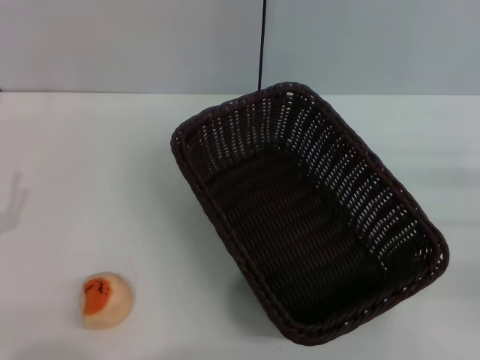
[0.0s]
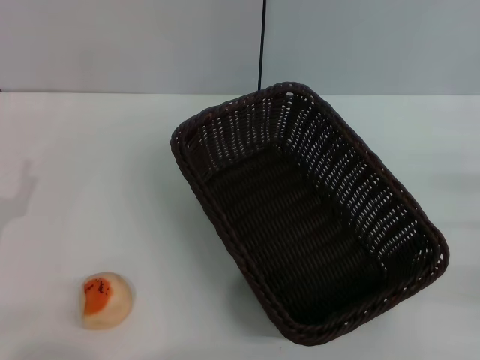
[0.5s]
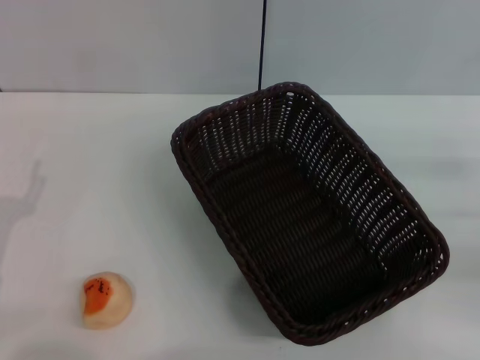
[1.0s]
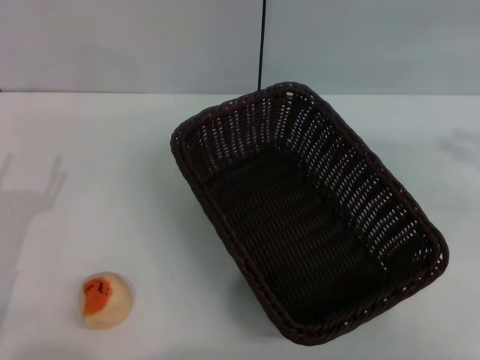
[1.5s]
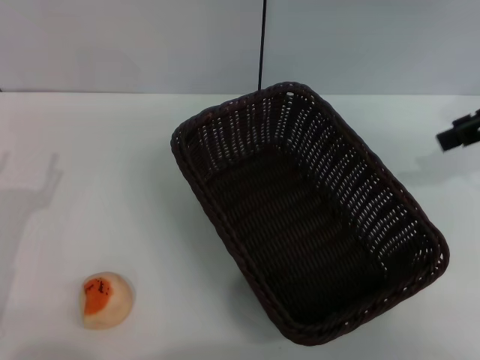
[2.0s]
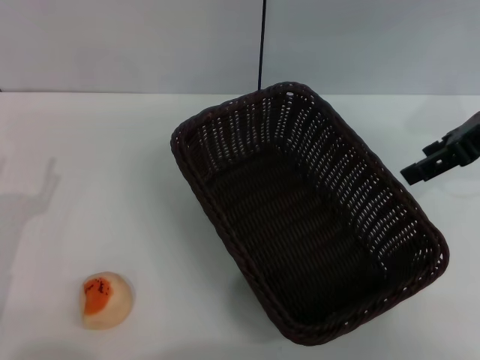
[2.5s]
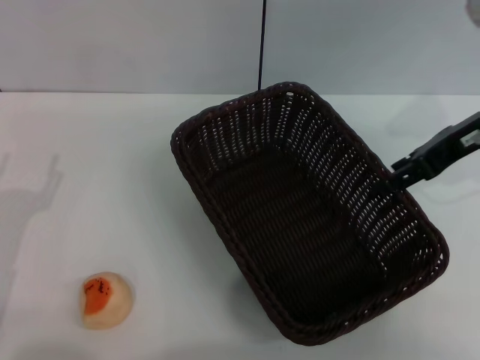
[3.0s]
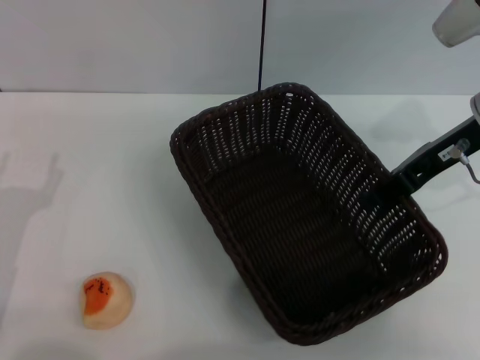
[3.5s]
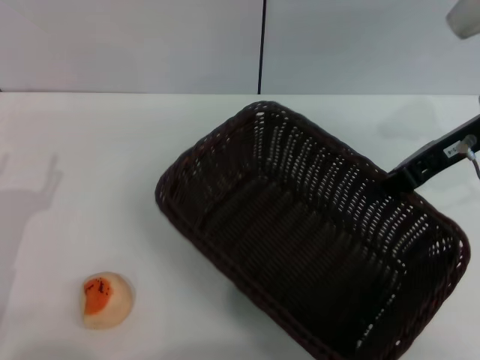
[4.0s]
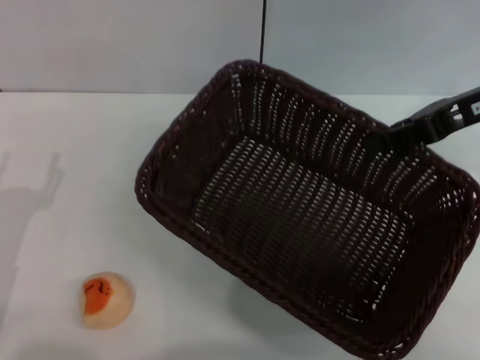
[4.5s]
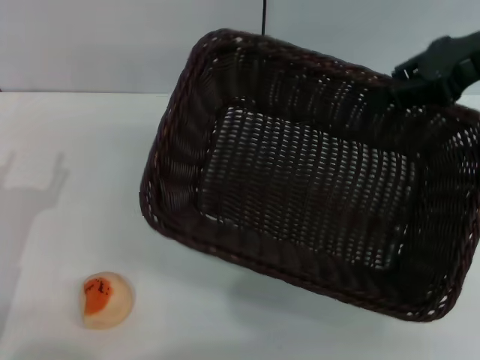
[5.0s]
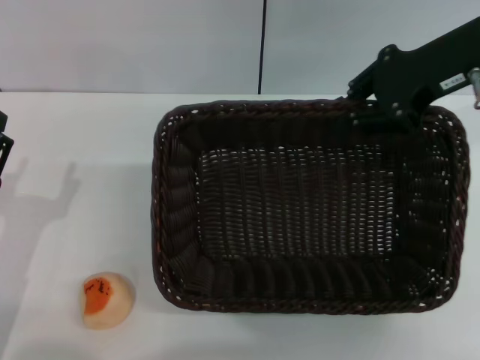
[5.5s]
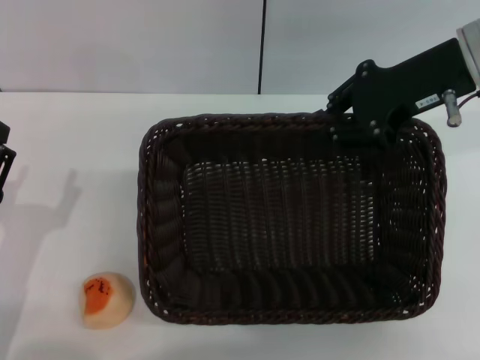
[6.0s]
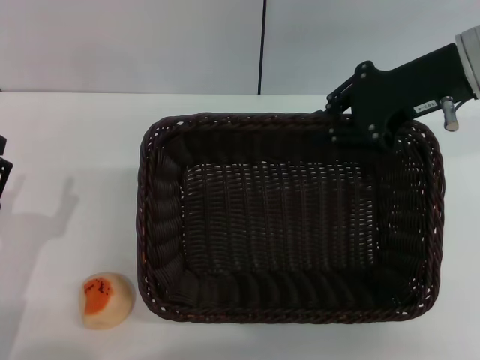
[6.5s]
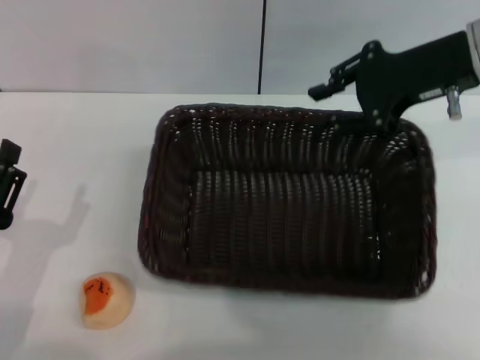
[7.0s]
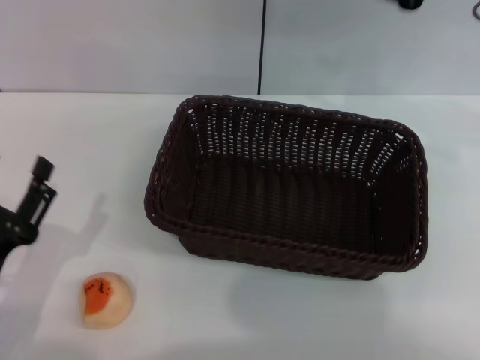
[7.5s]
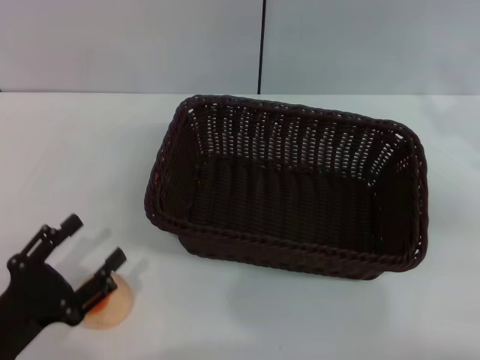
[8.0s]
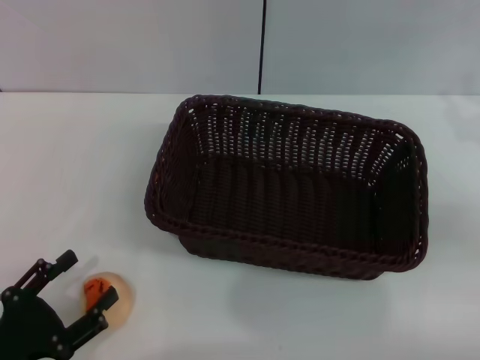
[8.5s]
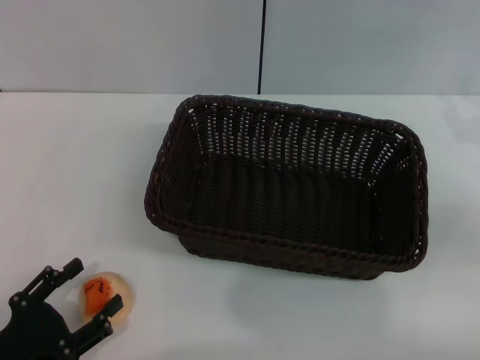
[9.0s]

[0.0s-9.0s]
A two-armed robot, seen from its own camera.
Step, 0.0s to 7.0s: Move the basket to the center of view with the right gripper.
0.0s to 2.0s: The right gripper moves upward and forward, approximately 20 cm.
2.0s to 4.5s: The right gripper closes its fingers.
7.0s to 9.0s: The right gripper is displaced to the right, downward and backward by approximately 20 cm. Meanwhile the left gripper changes place by some 5 cm.

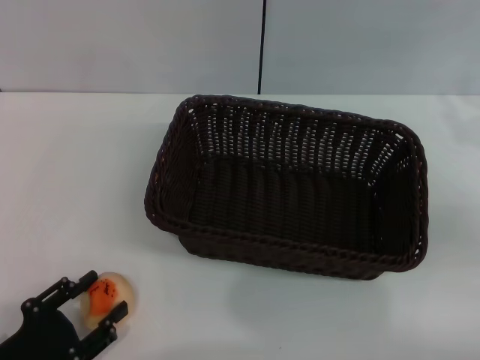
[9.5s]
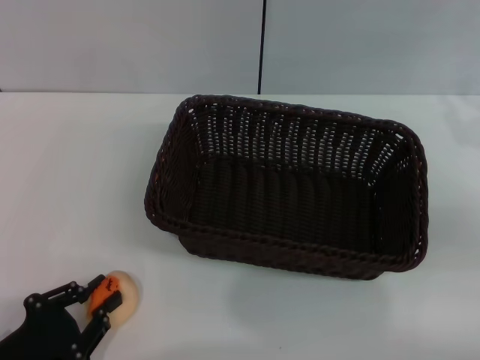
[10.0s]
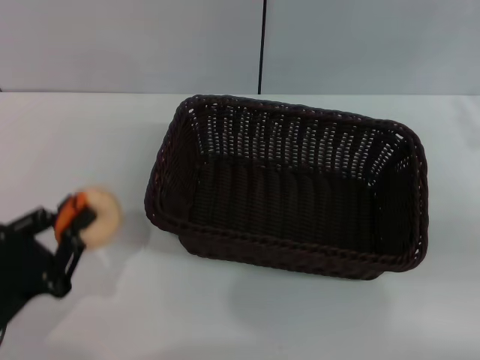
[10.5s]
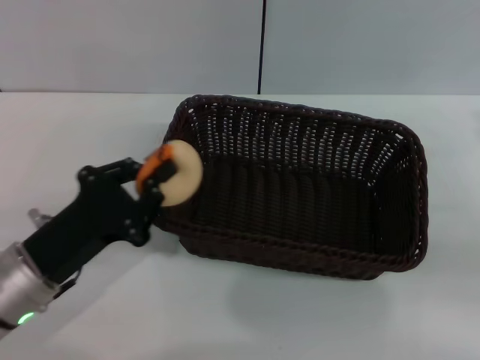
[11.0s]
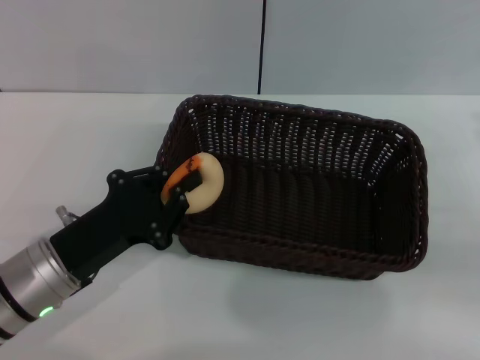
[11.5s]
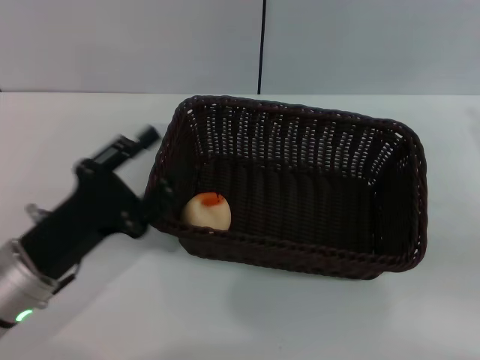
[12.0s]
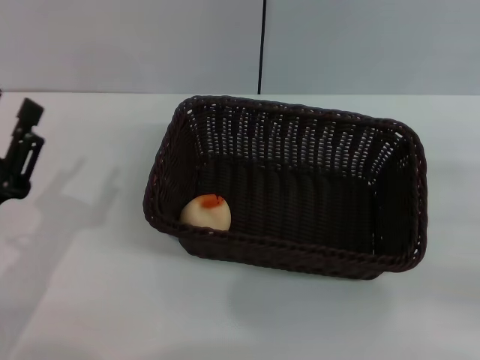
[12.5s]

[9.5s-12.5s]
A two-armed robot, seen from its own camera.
Step, 10.5s to 12.0s: Place the egg yolk pastry into the basket with the left gripper.
9.5s to 11.0s: The left gripper heads forward and upward, covering approximately 10 cm, and closes up.
11.0s to 12.5s: The left gripper opens.
